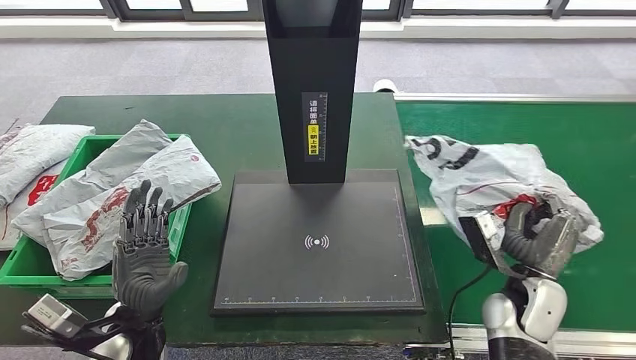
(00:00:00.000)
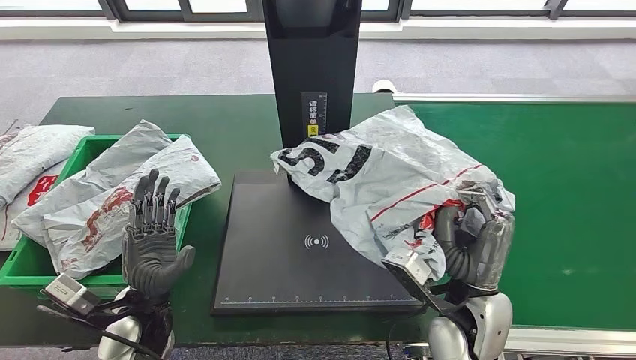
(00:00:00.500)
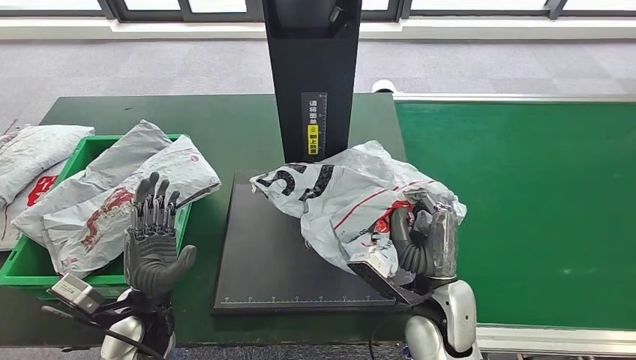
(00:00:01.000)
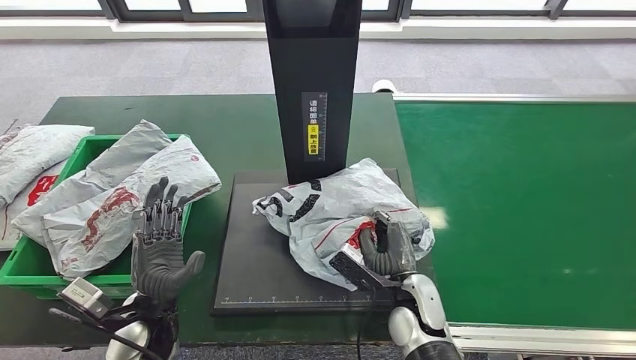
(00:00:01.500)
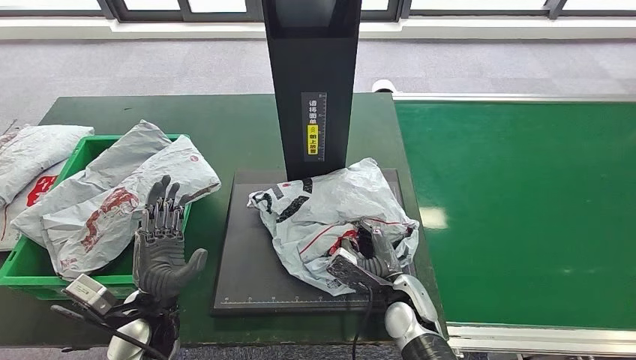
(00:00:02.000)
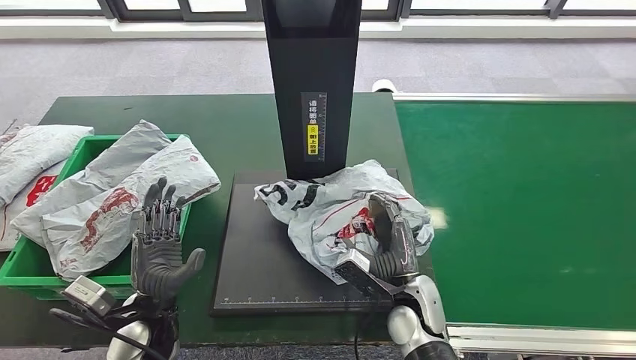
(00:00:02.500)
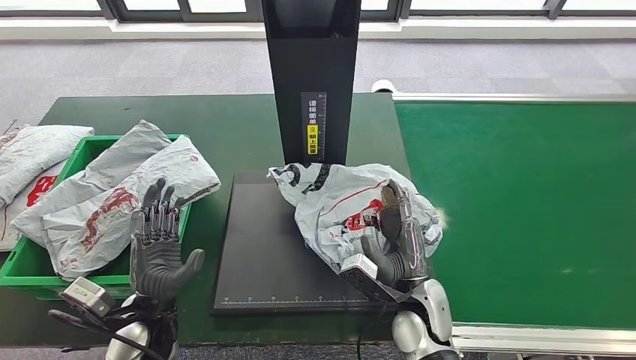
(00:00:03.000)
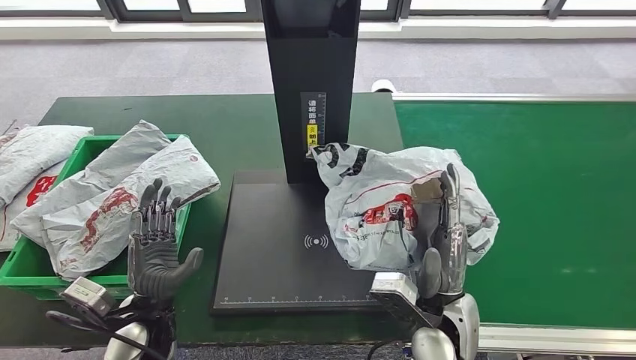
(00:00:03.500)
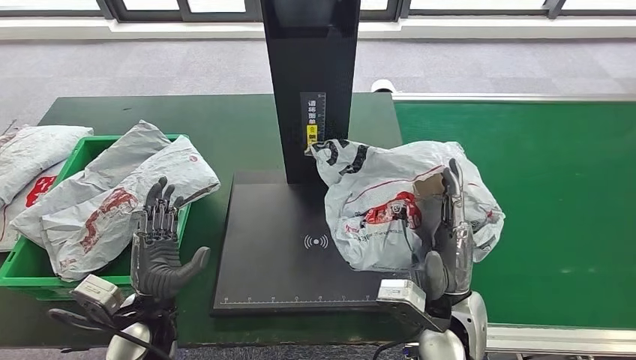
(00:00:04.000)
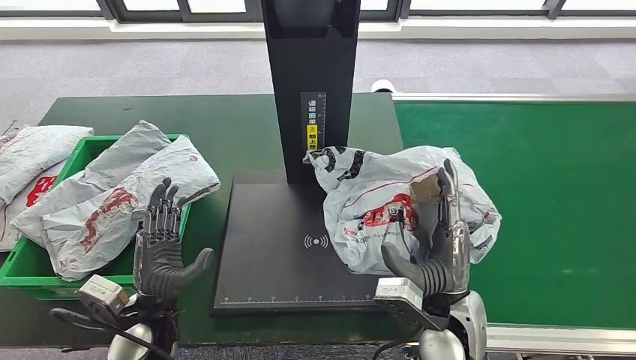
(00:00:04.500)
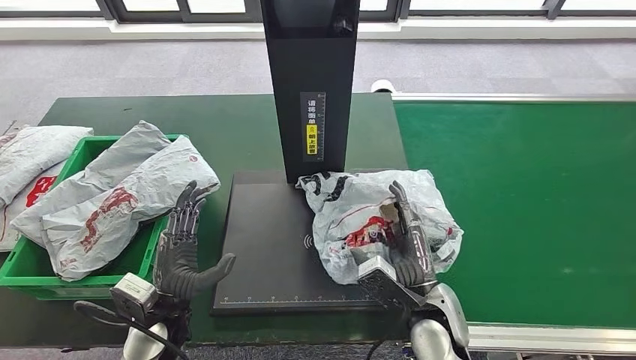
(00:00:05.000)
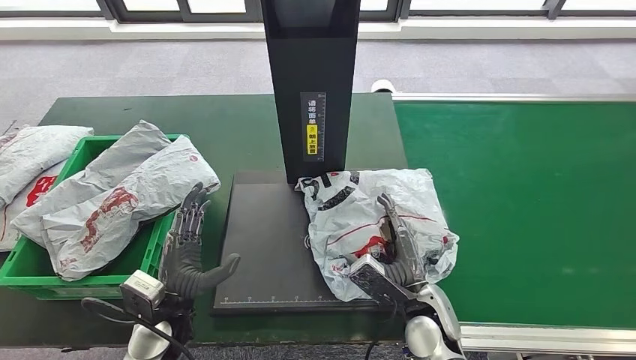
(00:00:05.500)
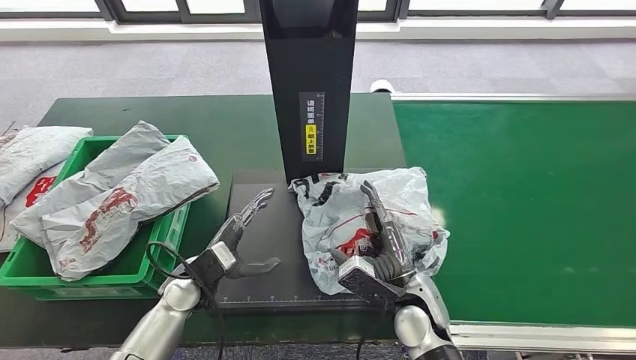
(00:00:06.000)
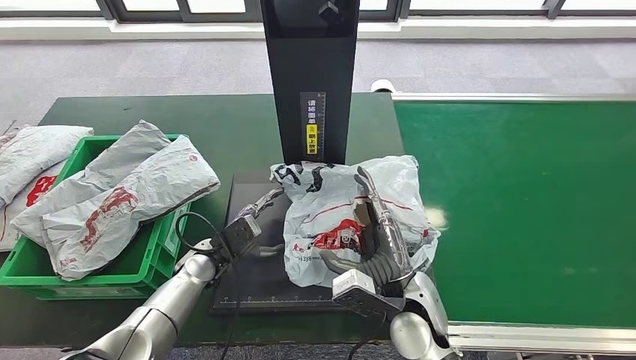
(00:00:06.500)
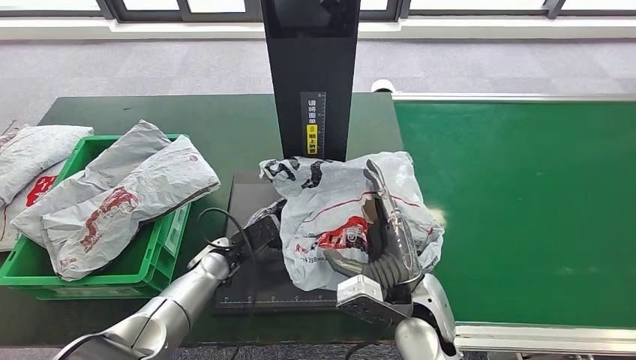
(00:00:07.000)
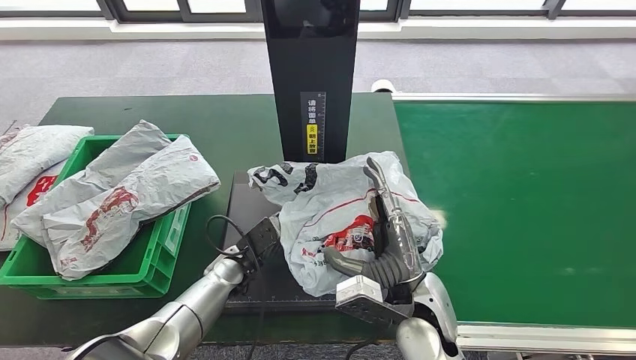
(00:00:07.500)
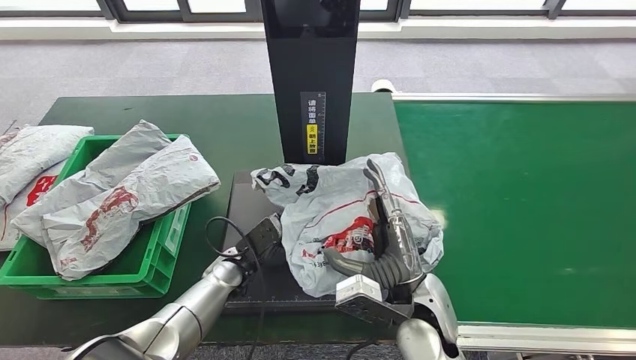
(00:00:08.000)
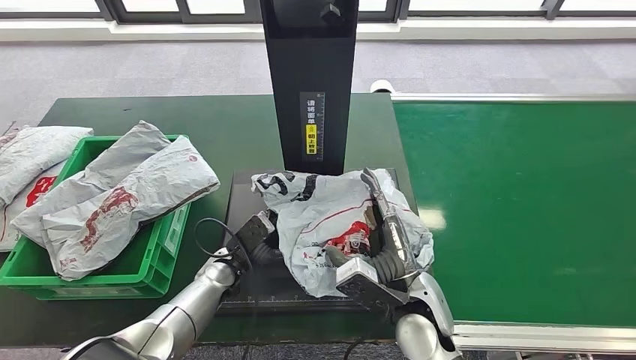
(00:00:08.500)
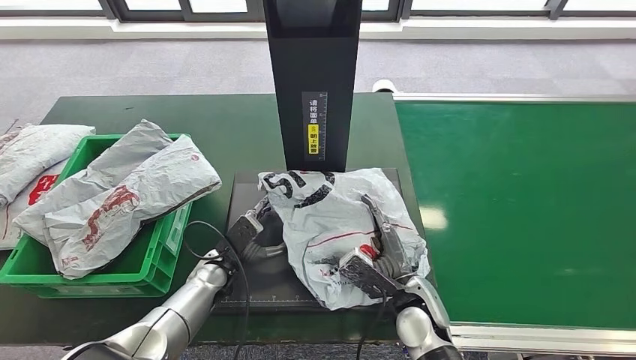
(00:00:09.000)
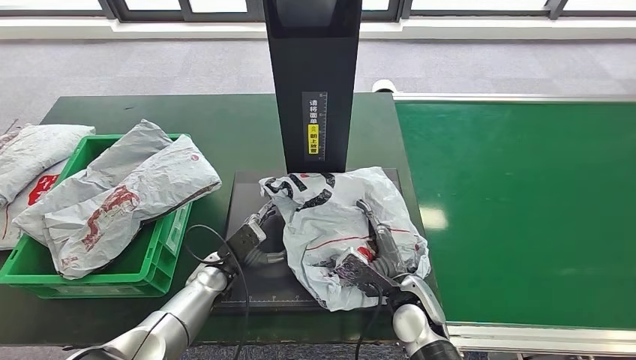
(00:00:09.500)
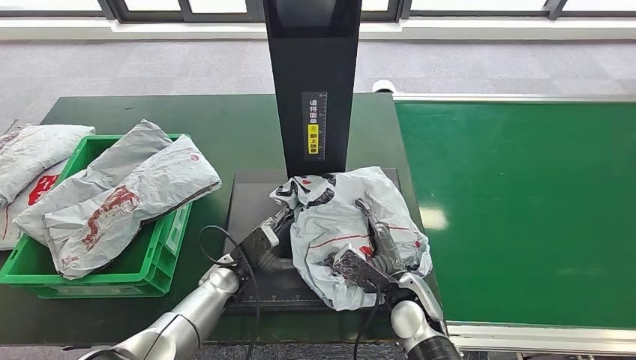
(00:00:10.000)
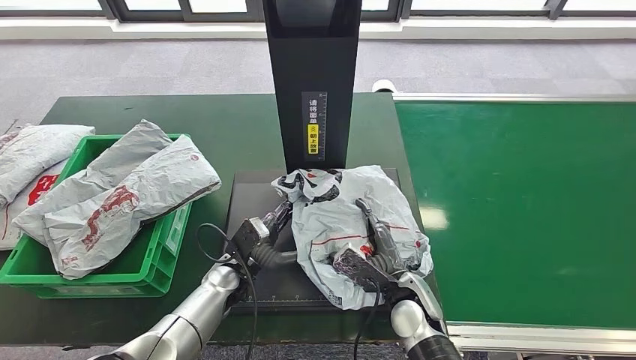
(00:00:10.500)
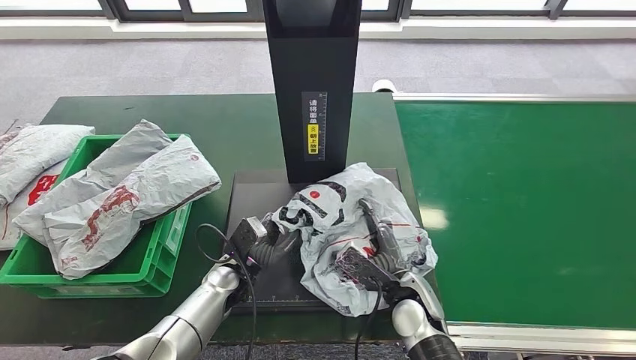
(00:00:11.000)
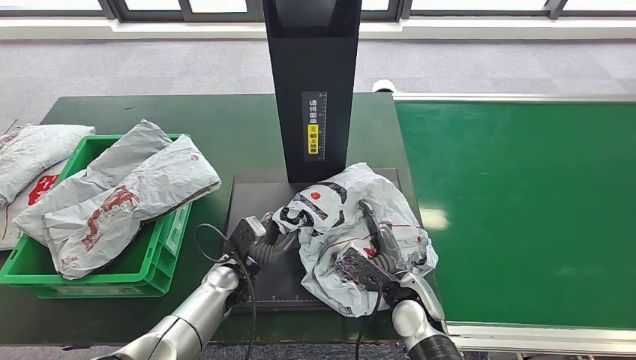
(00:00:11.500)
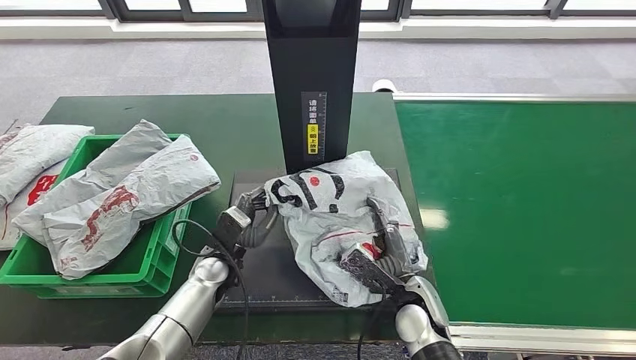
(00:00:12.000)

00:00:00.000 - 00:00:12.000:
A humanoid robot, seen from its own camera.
Step, 00:00:00.000 - 00:00:02.000: Place the parcel onto the inbound machine.
00:00:02.000 - 00:00:04.000: The right hand shifts about 10 cm upward.
00:00:06.000 - 00:00:08.000: The right hand shifts about 5 cm upward, while the left hand is displaced to the right by about 10 cm.
00:00:08.000 - 00:00:10.000: The right hand moves downward, approximately 10 cm.
00:00:10.000 - 00:00:12.000: The hands stay close to where they were, moving slightly.

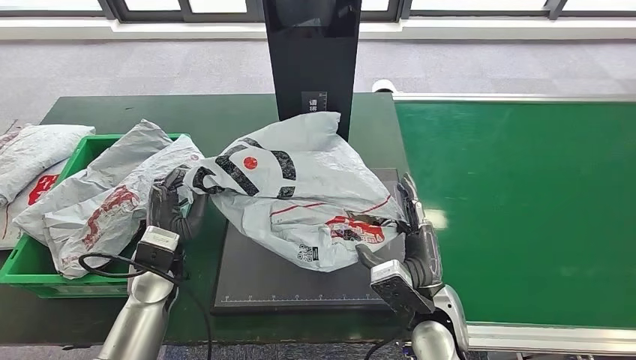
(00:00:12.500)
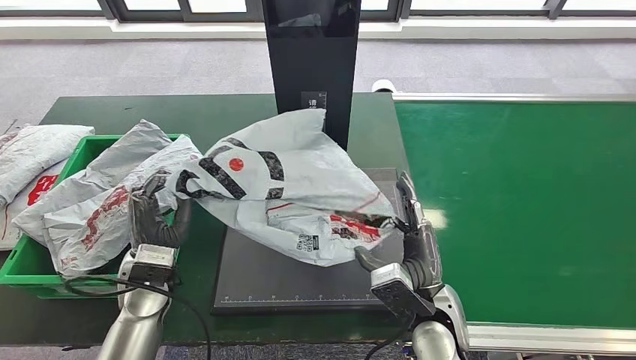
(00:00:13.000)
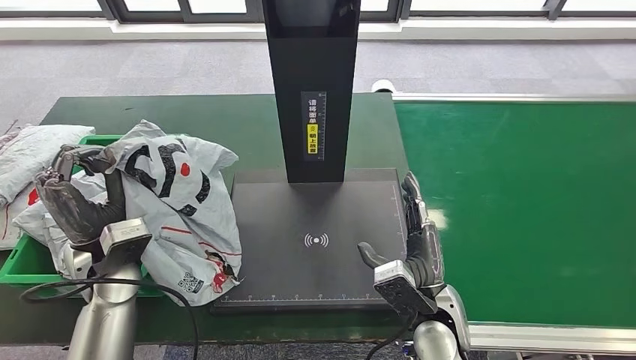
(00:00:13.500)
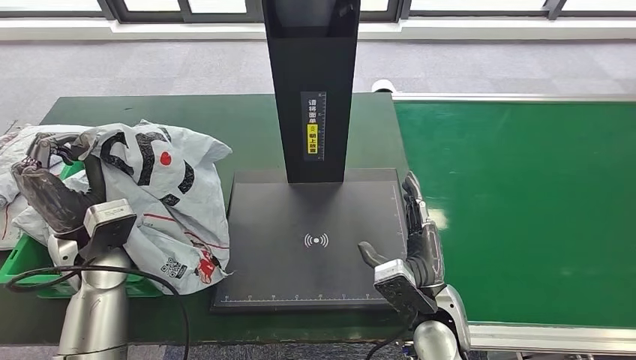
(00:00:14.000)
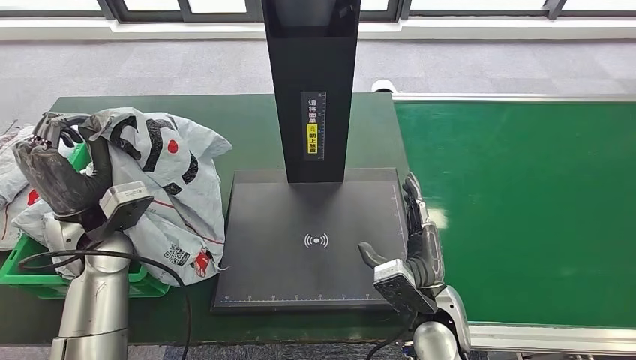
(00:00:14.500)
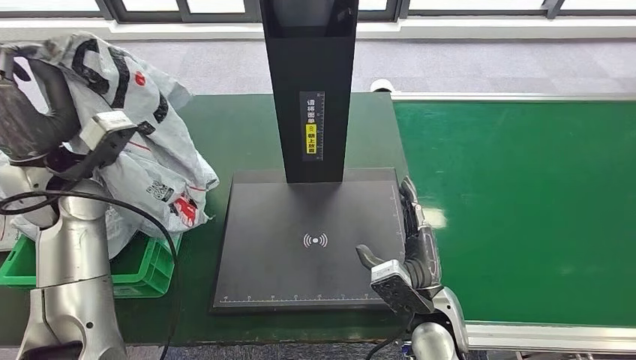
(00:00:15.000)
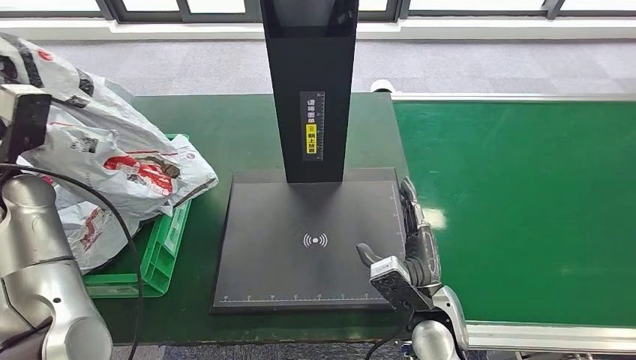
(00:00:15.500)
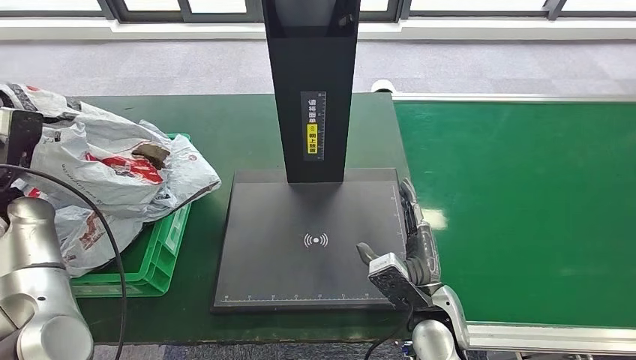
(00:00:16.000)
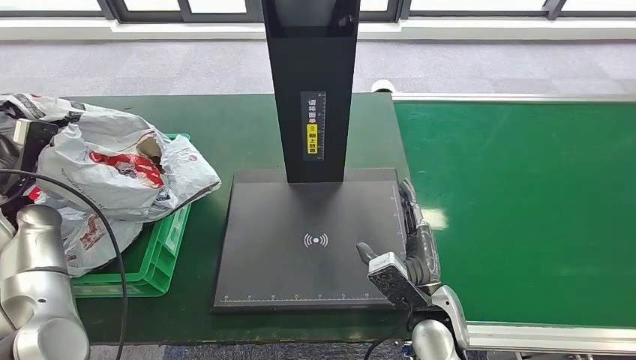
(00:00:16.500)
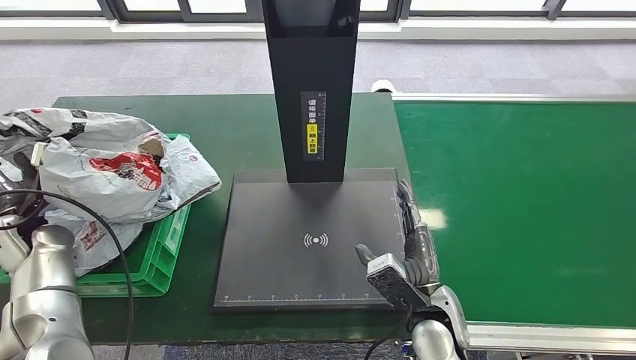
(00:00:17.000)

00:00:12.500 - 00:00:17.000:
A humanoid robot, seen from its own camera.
Step, 00:00:12.500 - 00:00:14.000: Pick up the parcel from the inbound machine.
Step, 00:00:14.500 - 00:00:17.000: Place the parcel into the delivery box.
